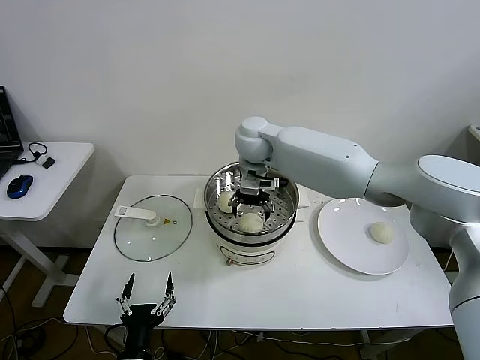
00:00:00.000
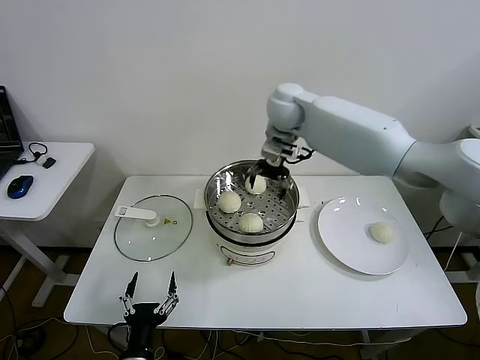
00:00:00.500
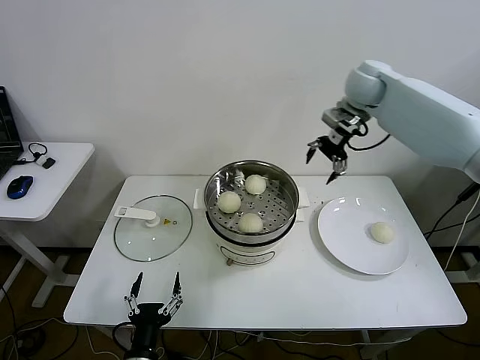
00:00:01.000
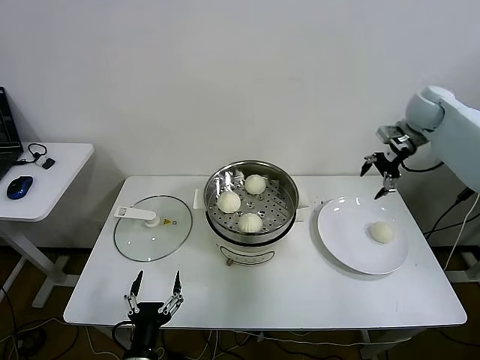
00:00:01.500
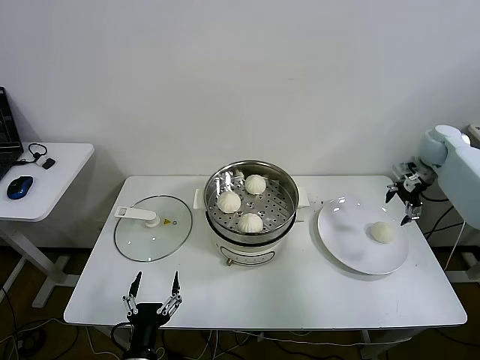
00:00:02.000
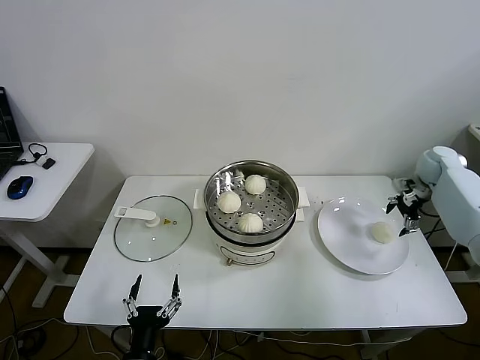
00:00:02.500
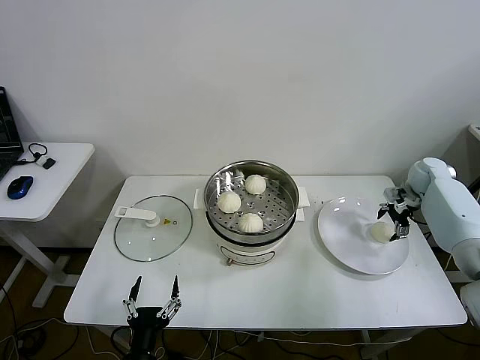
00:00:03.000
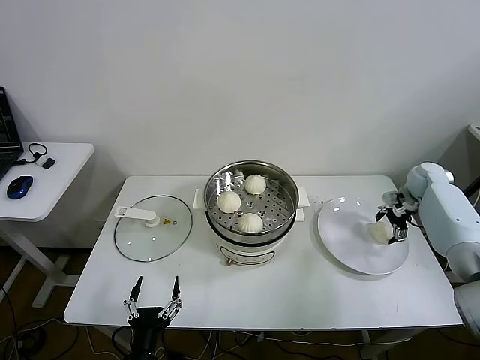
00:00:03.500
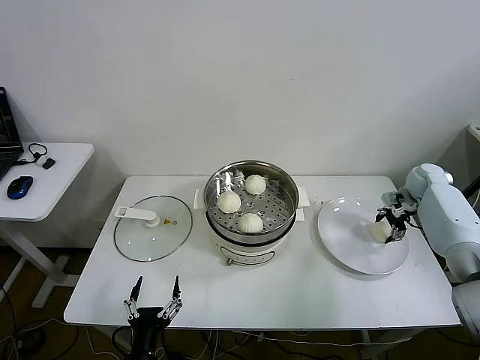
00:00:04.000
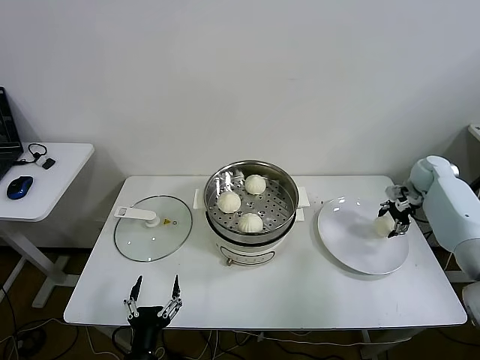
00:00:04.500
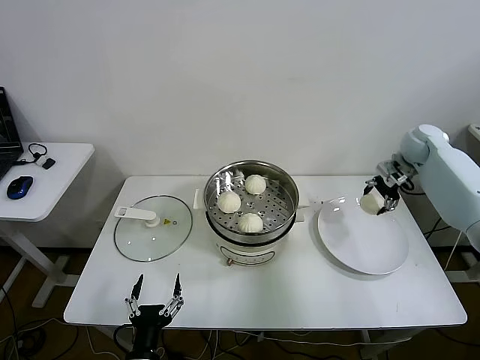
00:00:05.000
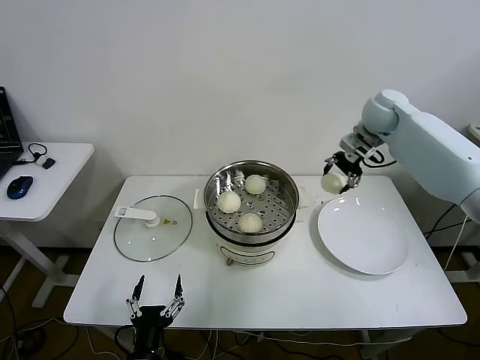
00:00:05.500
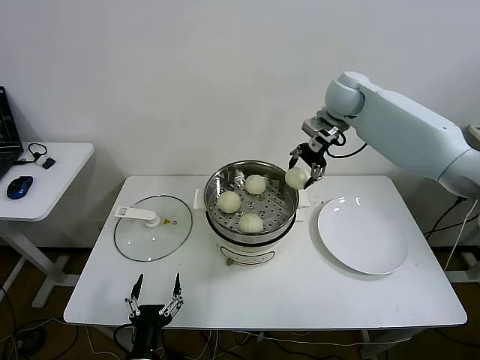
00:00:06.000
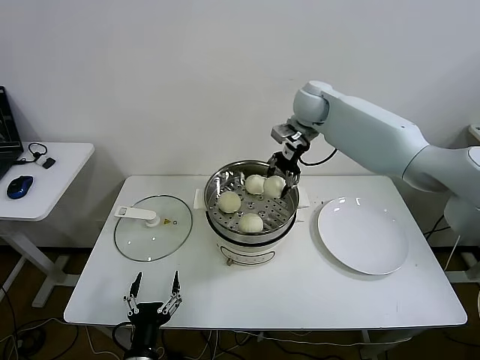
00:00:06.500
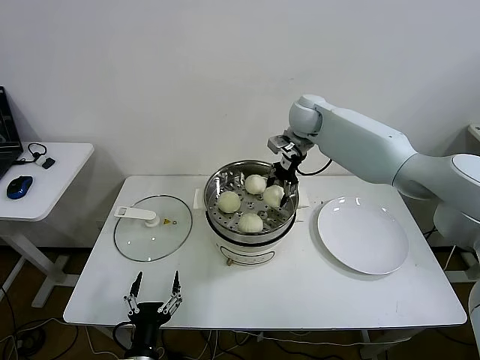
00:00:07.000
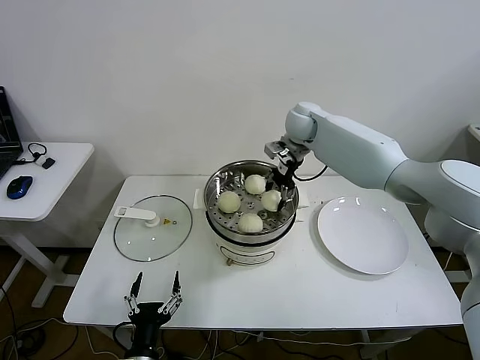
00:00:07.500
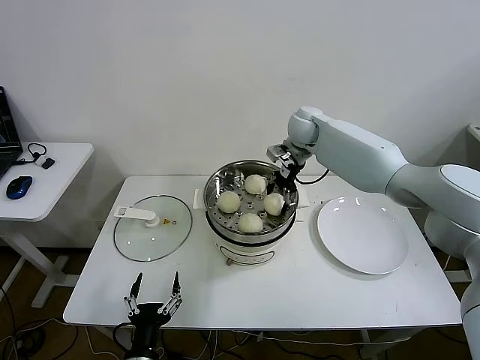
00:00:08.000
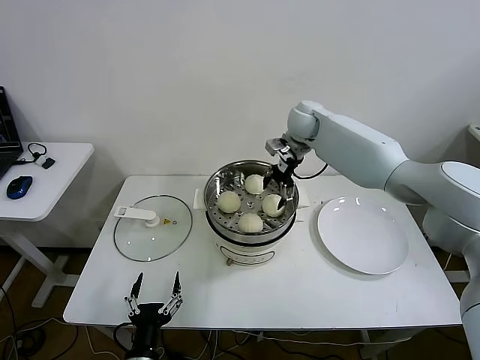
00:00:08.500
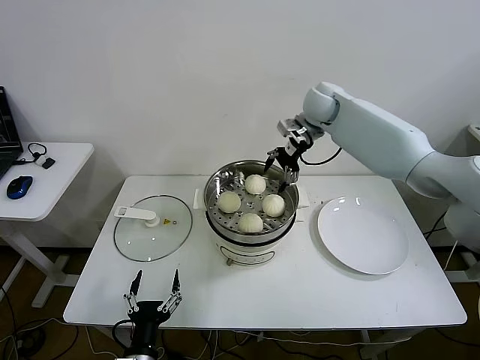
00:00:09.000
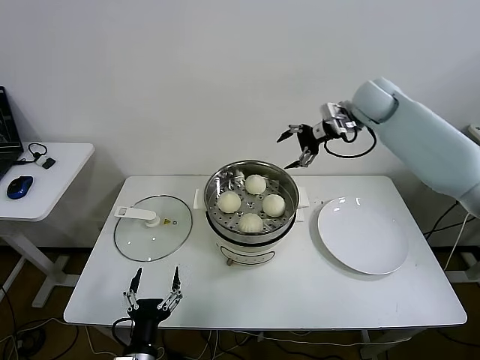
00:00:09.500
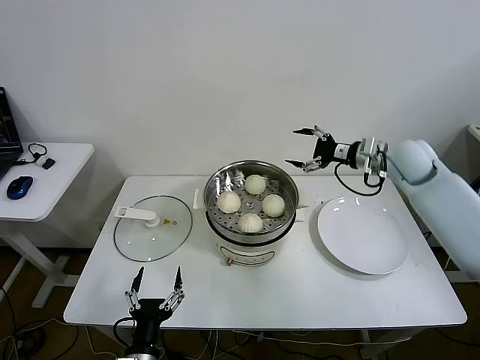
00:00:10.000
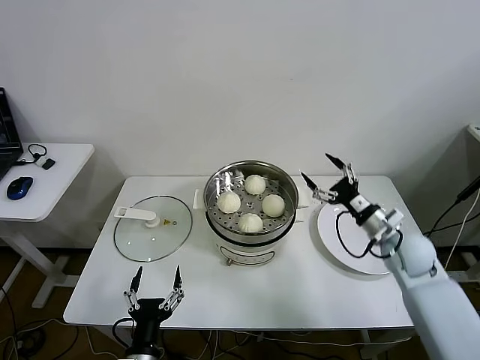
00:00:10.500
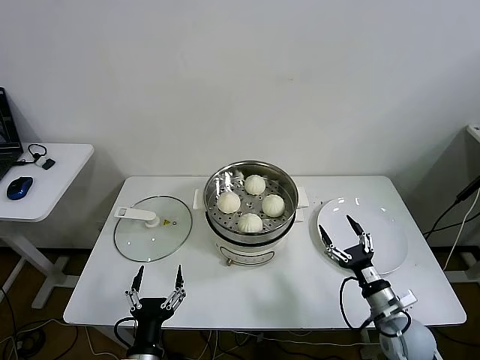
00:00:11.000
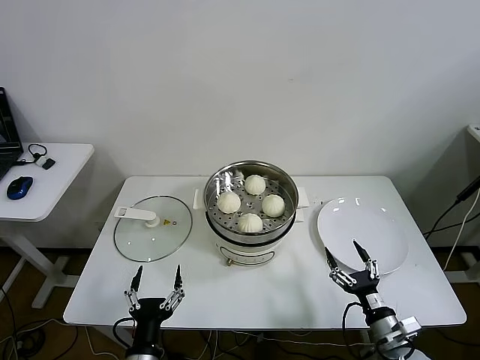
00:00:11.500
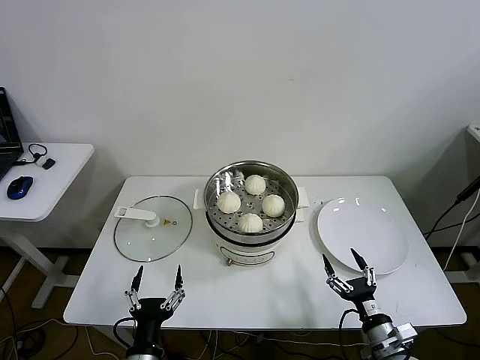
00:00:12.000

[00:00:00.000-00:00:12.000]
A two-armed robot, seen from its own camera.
Step, 00:00:00.000 to 00:00:03.500: Grasp the baozi in the plate with right gripper.
Step, 00:00:04.000 to 00:00:08.000: Place the baozi on the steamer with right gripper.
00:00:00.000 to 00:00:02.000: The right gripper travels to the right by roughly 50 cm.
00:00:02.000 to 00:00:04.000: The right gripper heads downward, covering approximately 10 cm, and closes its fingers.
00:00:04.000 to 00:00:06.000: The right gripper goes roughly 35 cm to the left and upward.
00:00:06.000 to 00:00:08.000: The right gripper shifts roughly 10 cm downward and to the left.
00:00:08.000 to 00:00:10.000: The right gripper goes roughly 25 cm to the right and backward, and opens its fingers.
00:00:10.000 to 00:00:12.000: The right gripper travels backward and downward by about 50 cm.
